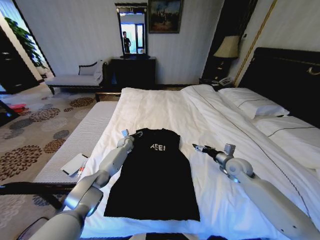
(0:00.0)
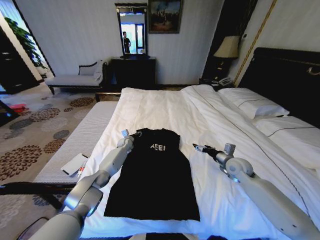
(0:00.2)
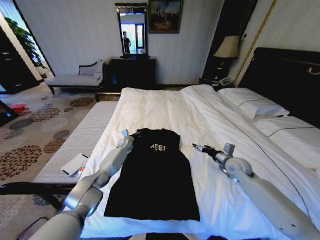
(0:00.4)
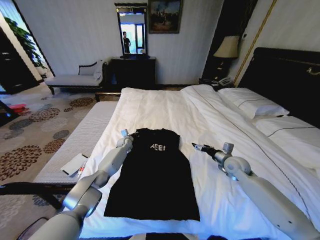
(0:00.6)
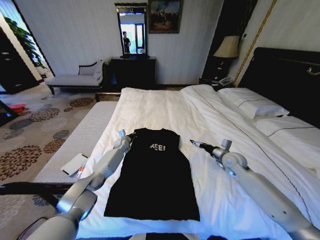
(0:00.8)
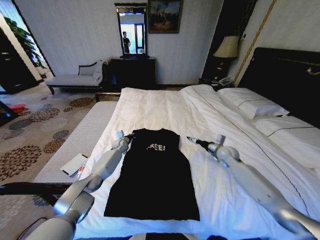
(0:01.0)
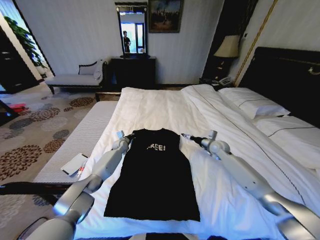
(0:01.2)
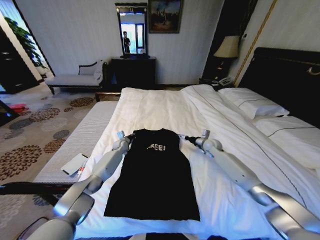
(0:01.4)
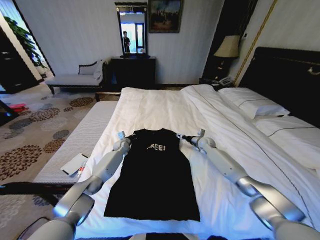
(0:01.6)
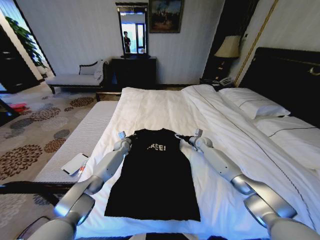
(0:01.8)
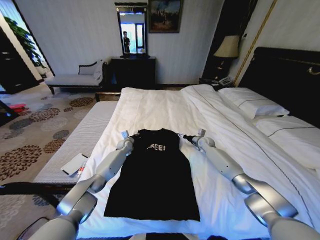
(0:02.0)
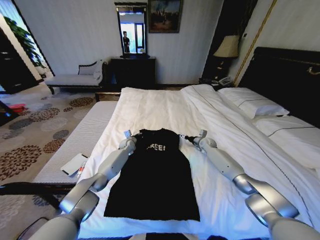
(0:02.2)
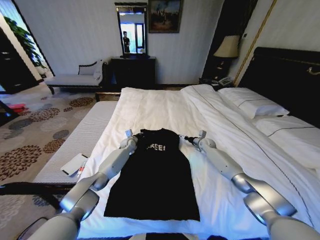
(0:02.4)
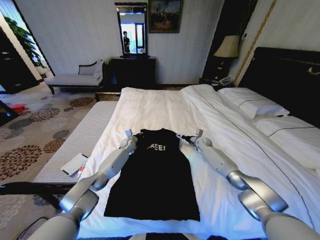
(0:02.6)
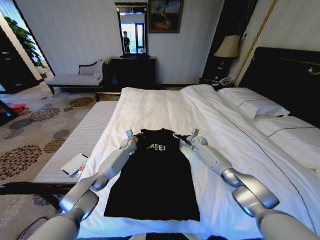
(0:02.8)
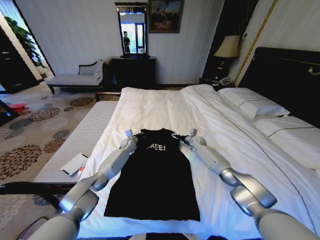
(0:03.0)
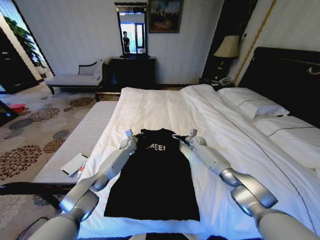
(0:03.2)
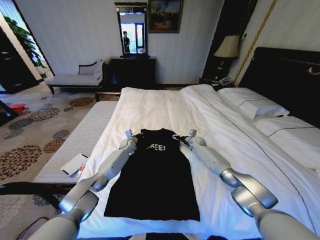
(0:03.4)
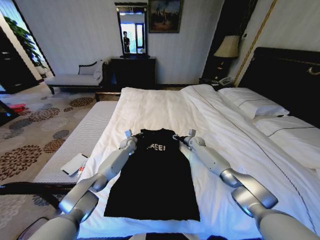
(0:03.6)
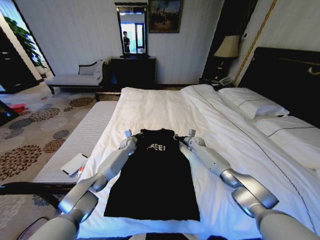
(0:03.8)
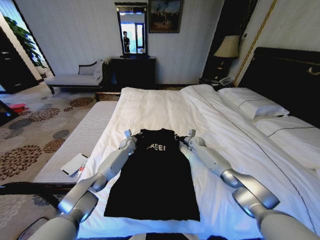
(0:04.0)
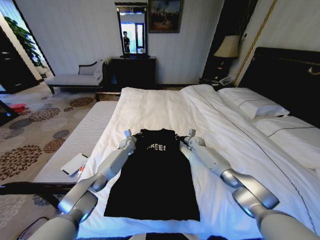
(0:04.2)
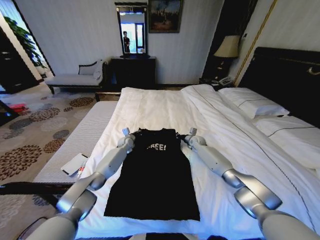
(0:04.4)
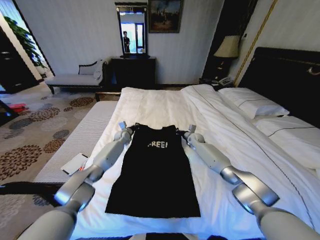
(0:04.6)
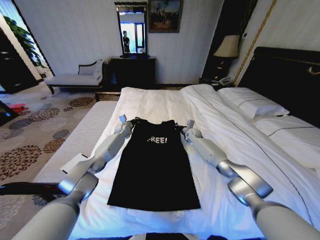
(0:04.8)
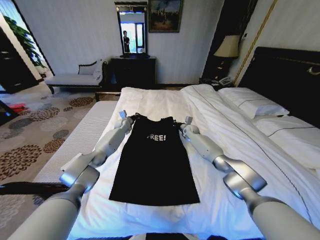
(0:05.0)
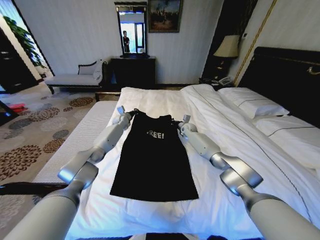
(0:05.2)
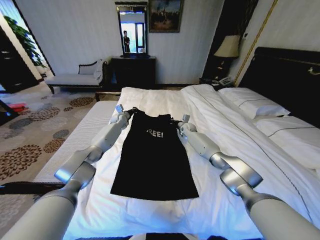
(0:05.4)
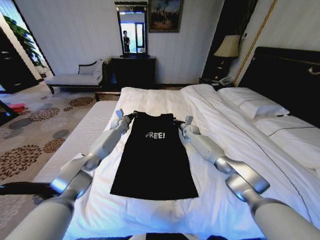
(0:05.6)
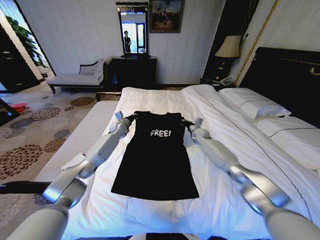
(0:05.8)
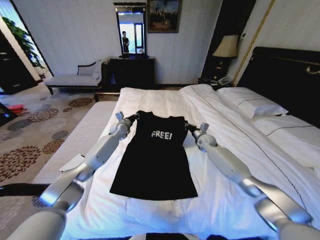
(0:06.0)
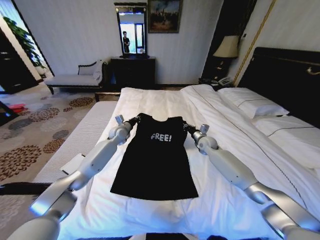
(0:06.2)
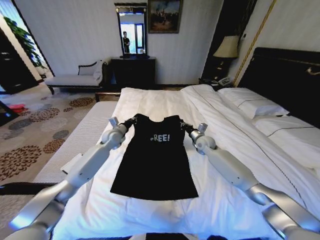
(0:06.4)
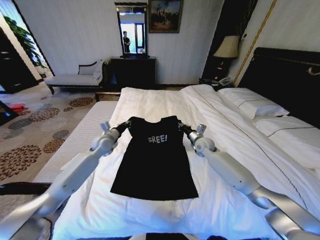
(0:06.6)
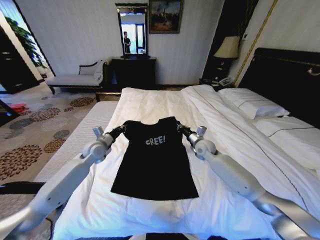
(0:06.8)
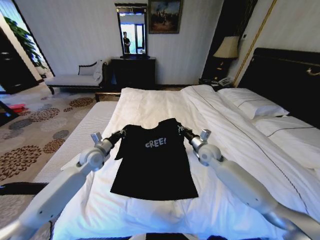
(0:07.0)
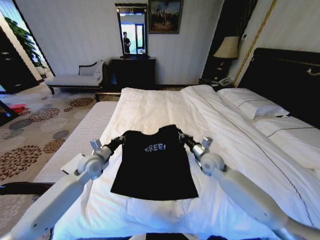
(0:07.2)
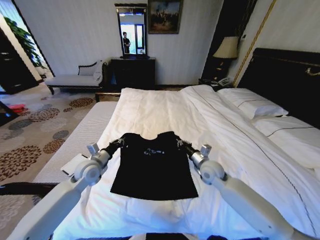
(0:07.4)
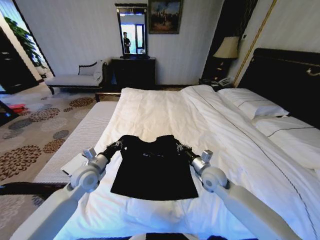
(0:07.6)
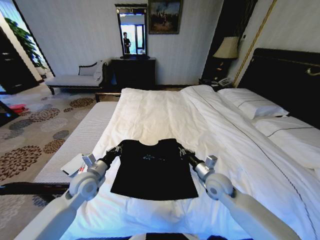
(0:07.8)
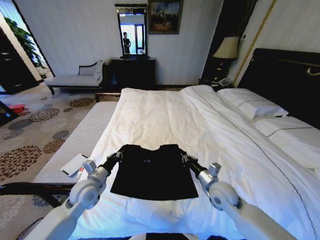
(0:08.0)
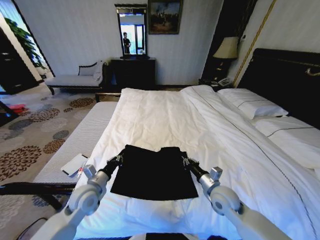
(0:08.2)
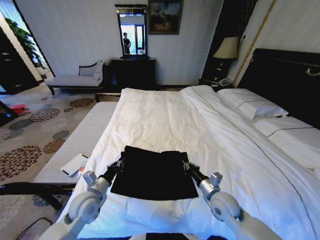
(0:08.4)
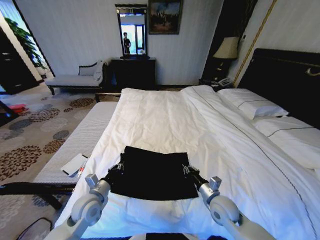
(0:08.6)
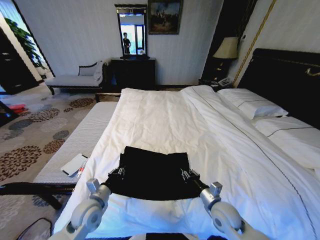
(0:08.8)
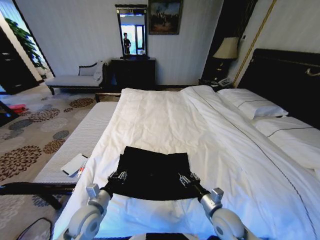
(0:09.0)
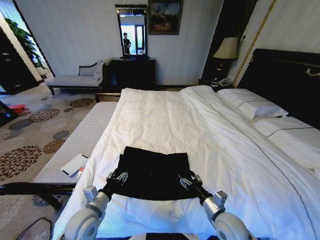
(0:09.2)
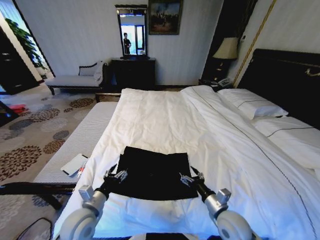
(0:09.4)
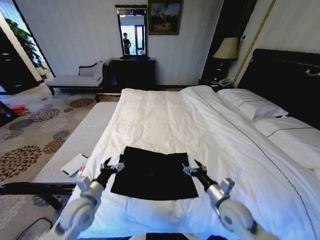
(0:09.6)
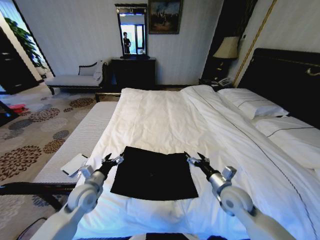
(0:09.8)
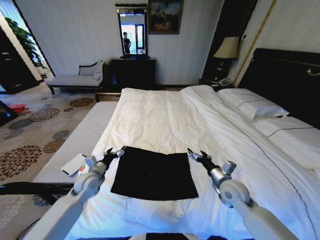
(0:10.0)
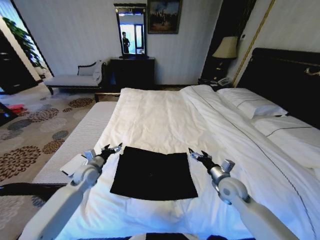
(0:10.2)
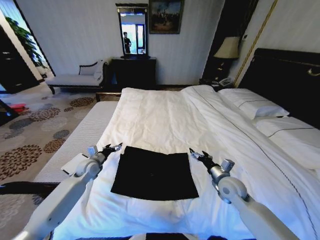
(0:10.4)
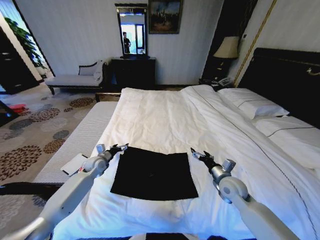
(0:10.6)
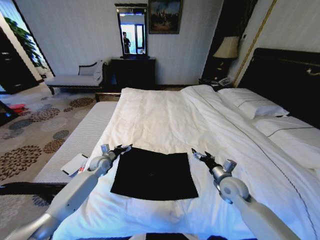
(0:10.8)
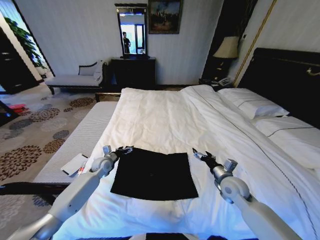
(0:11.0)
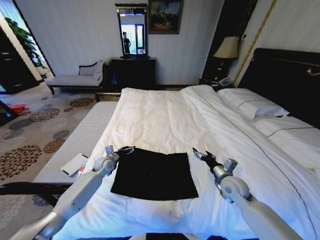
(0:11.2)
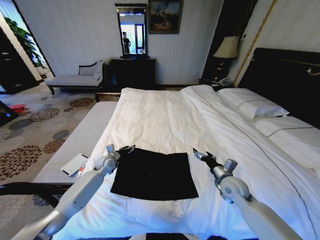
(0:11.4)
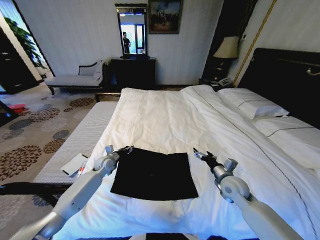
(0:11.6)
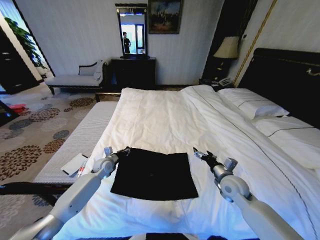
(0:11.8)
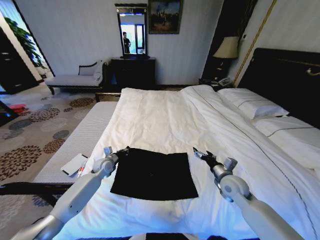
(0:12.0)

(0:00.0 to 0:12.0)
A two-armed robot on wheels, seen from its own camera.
Task of the whole recording: Fold the clothes on the bed.
0:00.0 - 0:01.6: The left gripper closes. Meanwhile the right gripper goes some 20 cm forward.
0:01.6 - 0:03.0: The right gripper moves about 5 cm.
0:03.0 - 0:04.4: The right gripper closes its fingers.
0:04.4 - 0:06.0: The left gripper heads upward, covering roughly 10 cm.
0:06.0 - 0:07.6: The two grippers go about 25 cm backward.
0:07.6 - 0:09.0: The two grippers go about 15 cm backward and downward. The right gripper opens up.
0:09.0 - 0:10.4: The right gripper shifts roughly 10 cm forward and to the right, and opens, while the left gripper heads forward, covering roughly 20 cm, and opens up.
0:10.4 - 0:12.0: The left gripper heads to the right, covering some 5 cm, and closes.

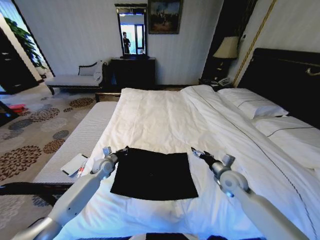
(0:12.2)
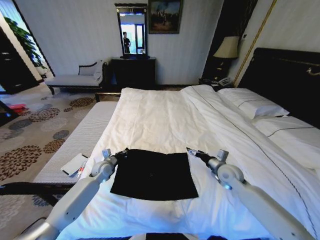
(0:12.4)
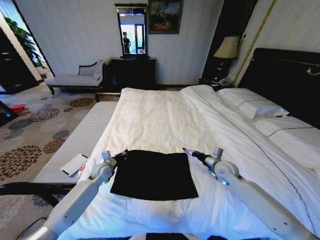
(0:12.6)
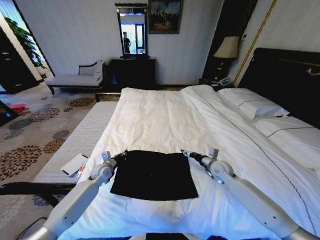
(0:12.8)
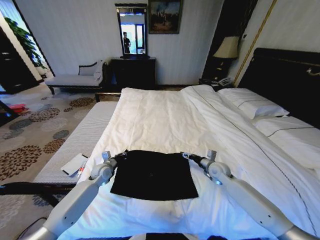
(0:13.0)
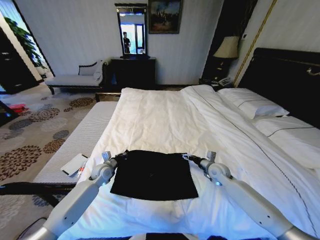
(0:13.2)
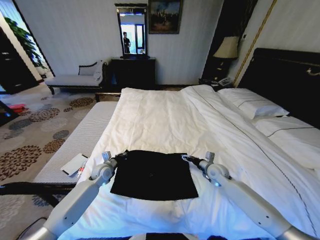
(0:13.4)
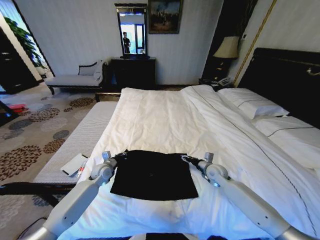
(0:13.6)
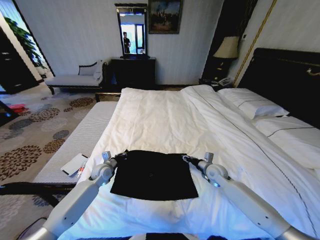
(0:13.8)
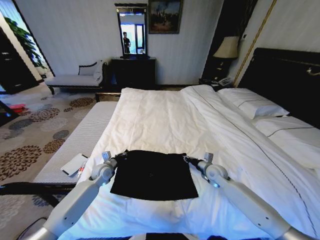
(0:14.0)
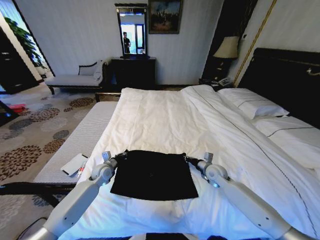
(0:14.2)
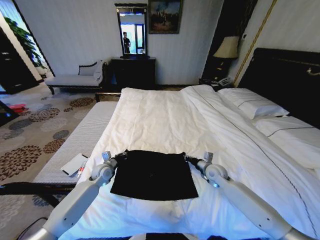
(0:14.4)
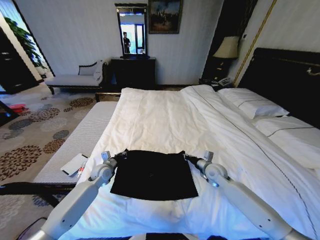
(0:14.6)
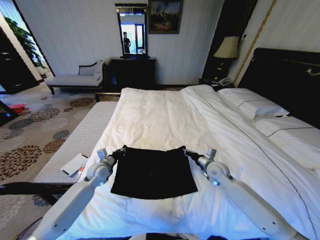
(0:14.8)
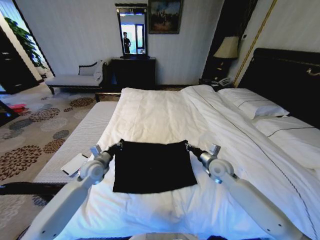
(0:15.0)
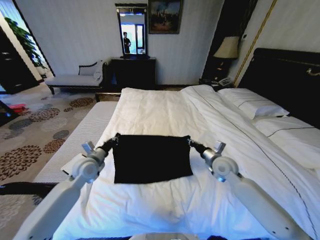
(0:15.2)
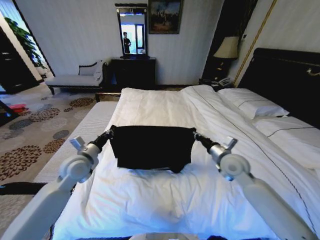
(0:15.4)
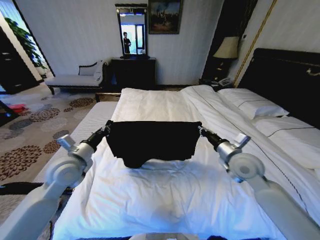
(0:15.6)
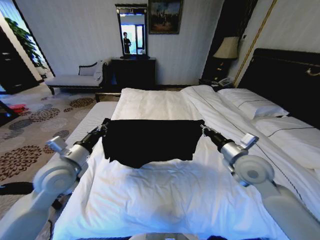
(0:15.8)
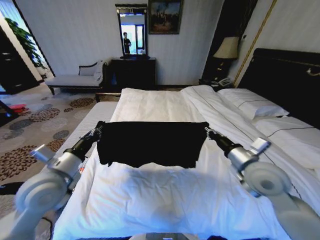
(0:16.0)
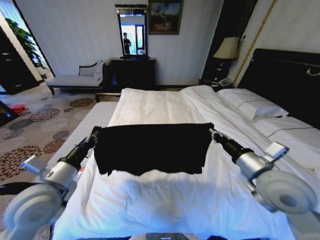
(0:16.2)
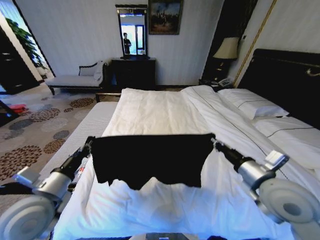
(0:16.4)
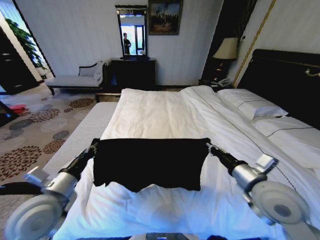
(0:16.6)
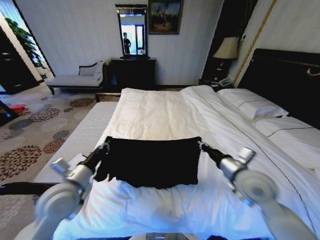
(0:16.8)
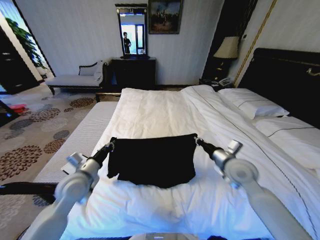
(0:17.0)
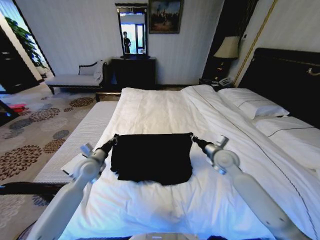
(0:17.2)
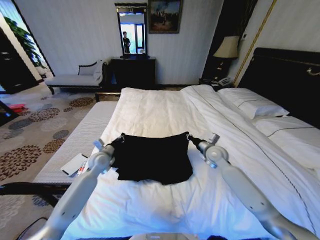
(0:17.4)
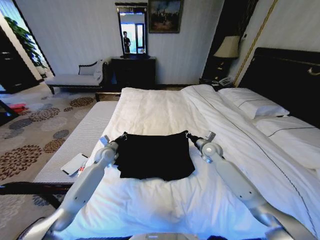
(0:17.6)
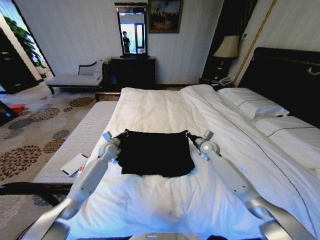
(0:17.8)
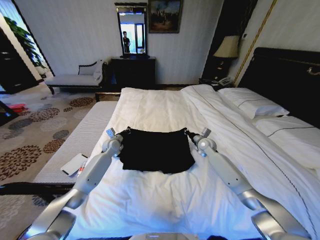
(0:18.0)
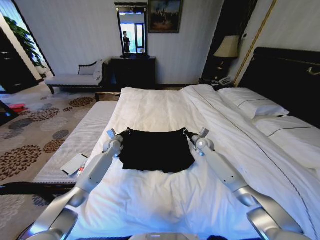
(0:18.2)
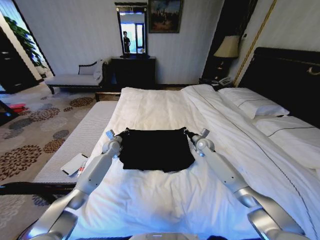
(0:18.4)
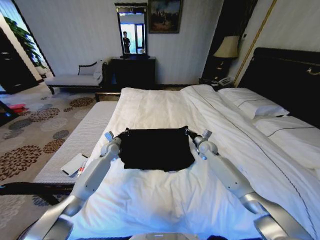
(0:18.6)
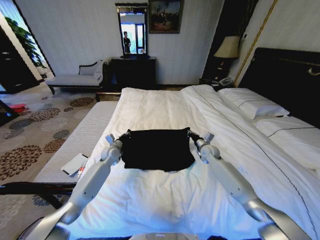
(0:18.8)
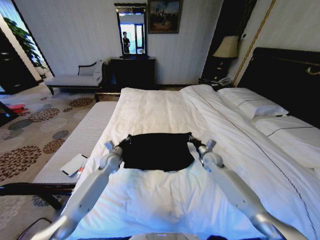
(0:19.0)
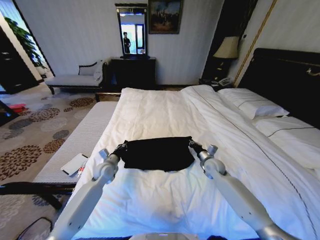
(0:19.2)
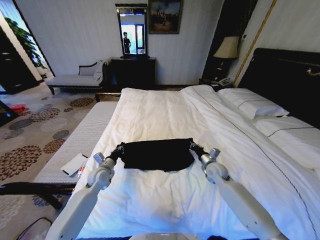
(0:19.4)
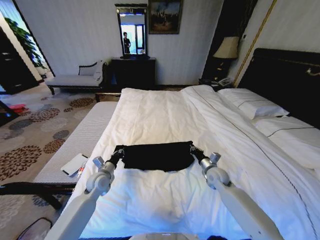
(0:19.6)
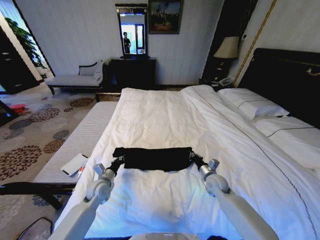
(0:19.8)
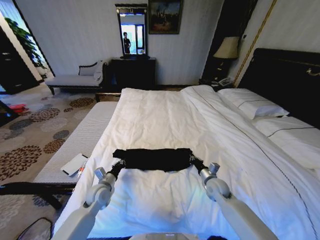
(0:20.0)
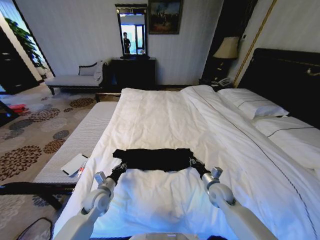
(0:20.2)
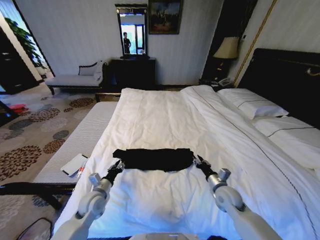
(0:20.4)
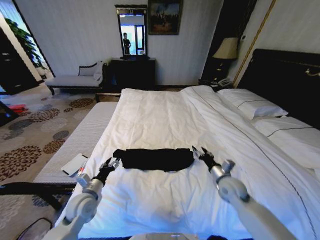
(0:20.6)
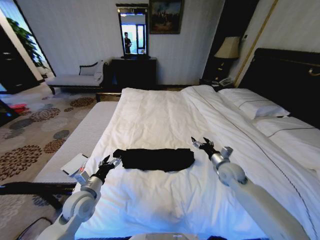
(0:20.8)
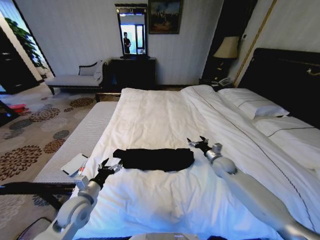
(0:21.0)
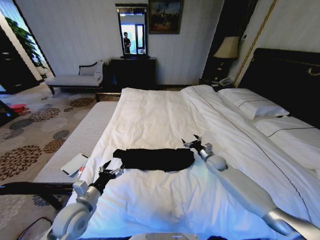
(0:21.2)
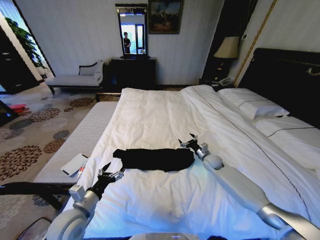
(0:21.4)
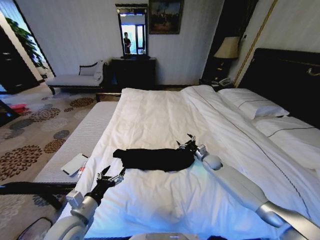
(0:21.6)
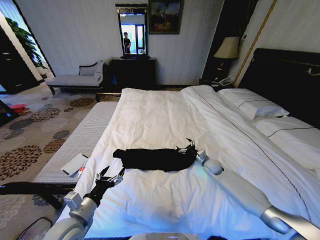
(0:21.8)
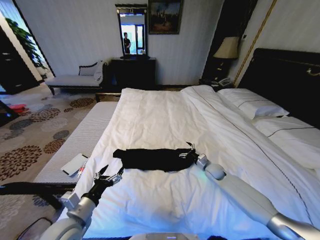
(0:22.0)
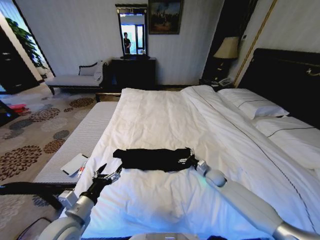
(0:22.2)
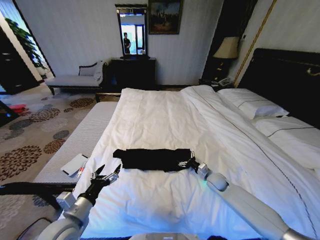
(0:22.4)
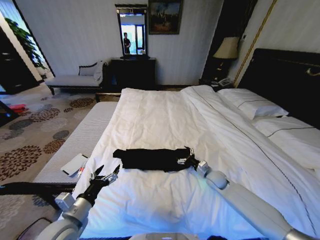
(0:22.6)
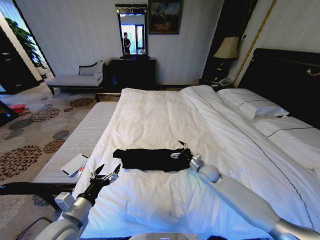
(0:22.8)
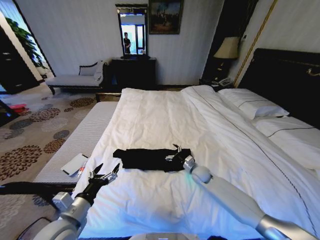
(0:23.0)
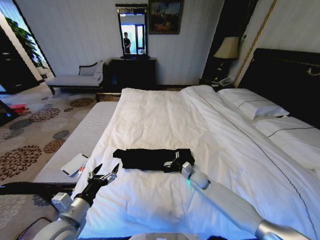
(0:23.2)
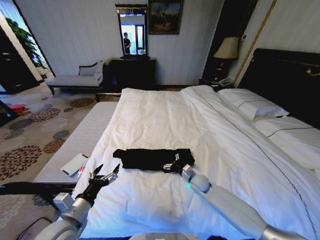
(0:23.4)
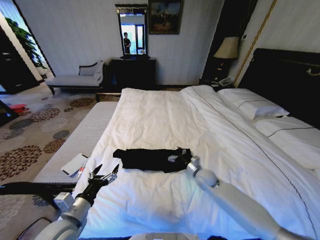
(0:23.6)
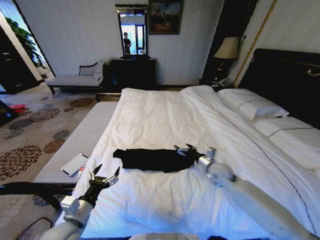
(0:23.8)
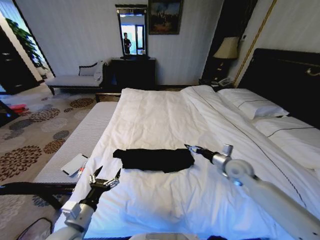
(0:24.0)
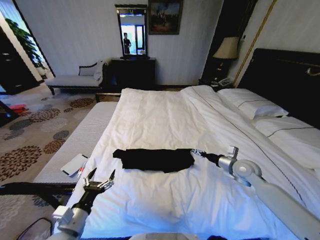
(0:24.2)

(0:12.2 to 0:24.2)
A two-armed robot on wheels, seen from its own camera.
Task of the whole recording: Fold the clothes on the bed.
0:12.2 - 0:13.8: The right gripper is displaced forward and downward by approximately 10 cm, and closes its fingers.
0:13.8 - 0:15.2: Both grippers travel together upward, roughly 10 cm. The right gripper closes its fingers.
0:15.2 - 0:16.6: The two grippers go approximately 20 cm backward and upward.
0:16.6 - 0:18.2: The two grippers go about 35 cm forward and downward.
0:18.2 - 0:19.8: Both grippers travel together backward, roughly 20 cm.
0:19.8 - 0:21.2: The left gripper heads backward and upward, covering roughly 15 cm, and opens its fingers. The right gripper shifts approximately 10 cm forward, and opens up.
0:21.2 - 0:22.6: Both grippers travel together backward, approximately 5 cm.
0:22.6 - 0:24.2: The right gripper moves upward and to the right, roughly 15 cm.
